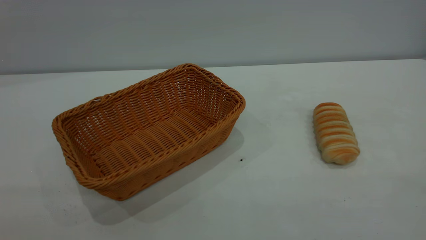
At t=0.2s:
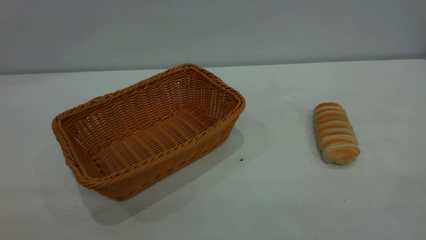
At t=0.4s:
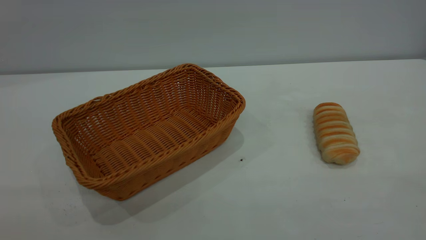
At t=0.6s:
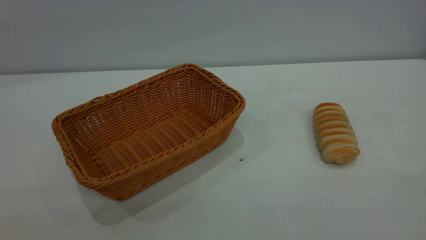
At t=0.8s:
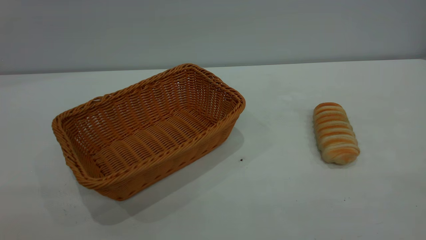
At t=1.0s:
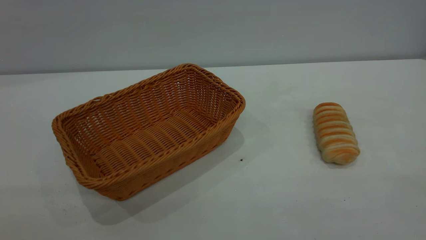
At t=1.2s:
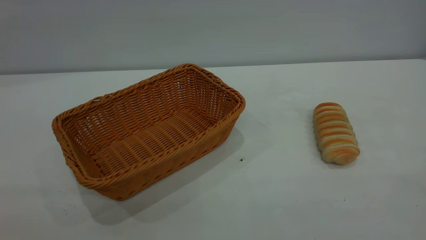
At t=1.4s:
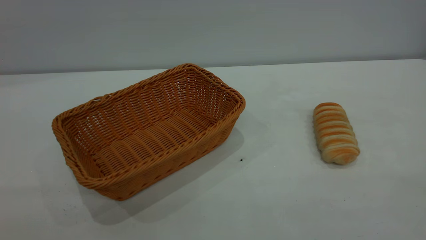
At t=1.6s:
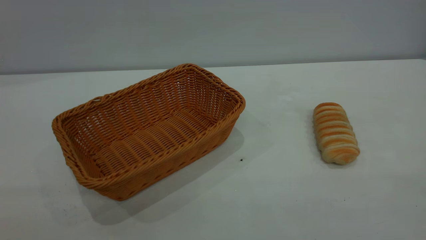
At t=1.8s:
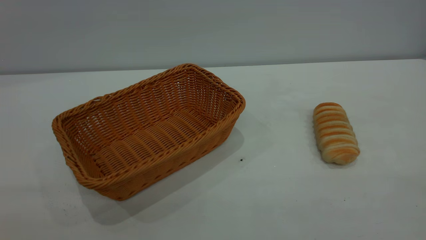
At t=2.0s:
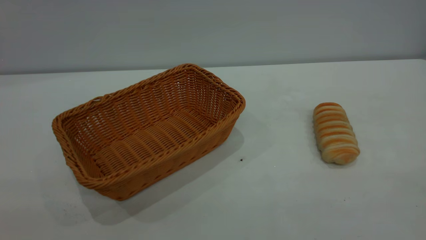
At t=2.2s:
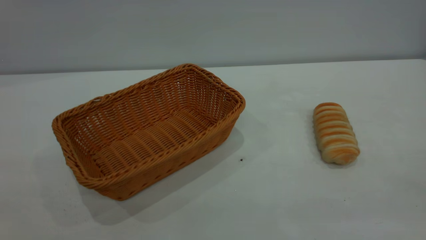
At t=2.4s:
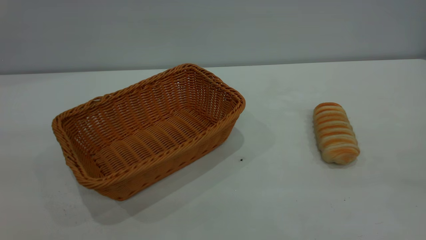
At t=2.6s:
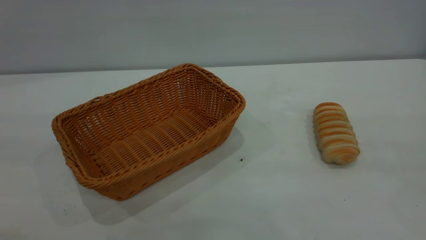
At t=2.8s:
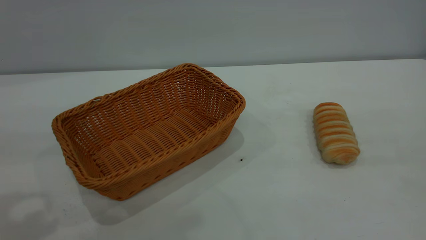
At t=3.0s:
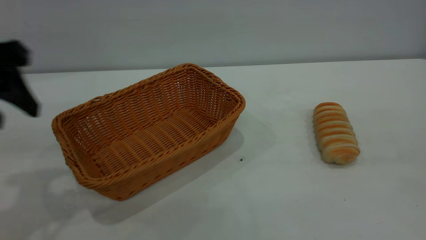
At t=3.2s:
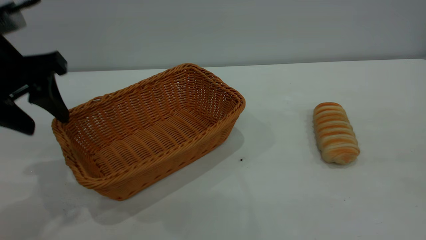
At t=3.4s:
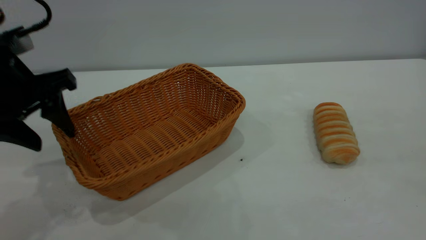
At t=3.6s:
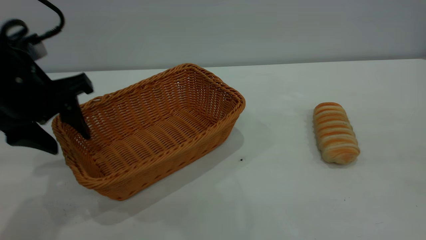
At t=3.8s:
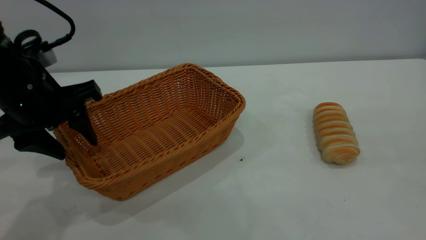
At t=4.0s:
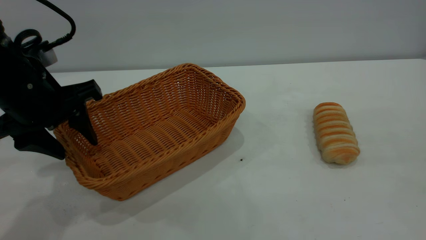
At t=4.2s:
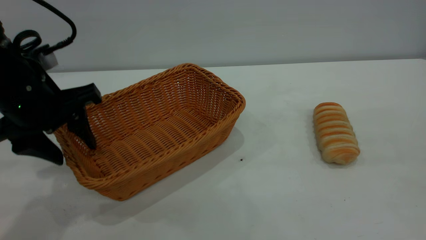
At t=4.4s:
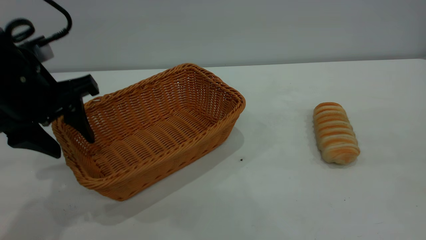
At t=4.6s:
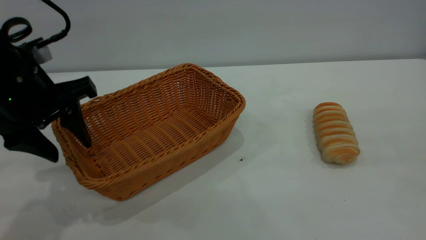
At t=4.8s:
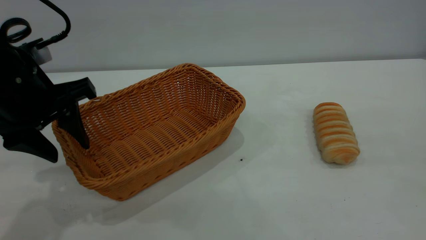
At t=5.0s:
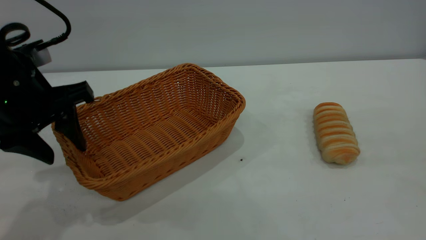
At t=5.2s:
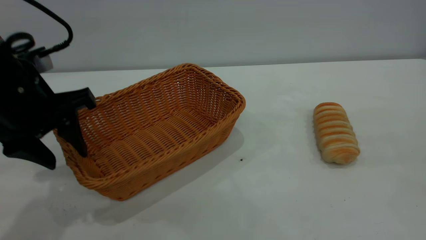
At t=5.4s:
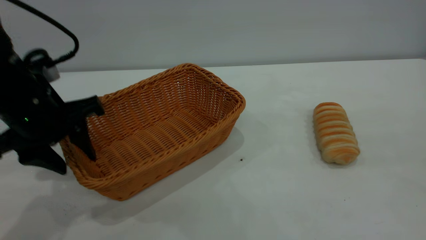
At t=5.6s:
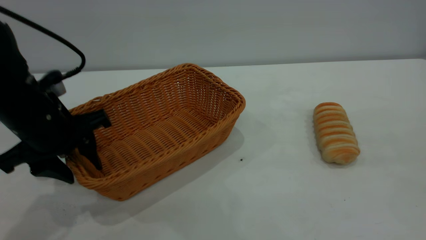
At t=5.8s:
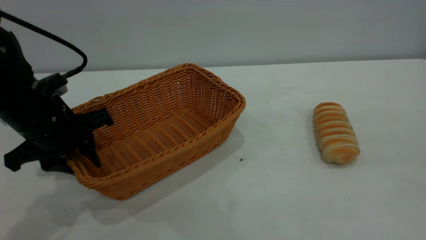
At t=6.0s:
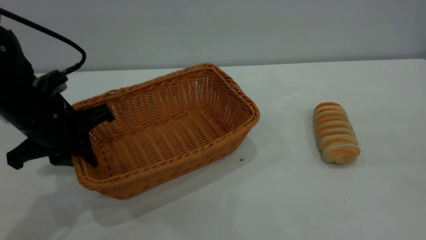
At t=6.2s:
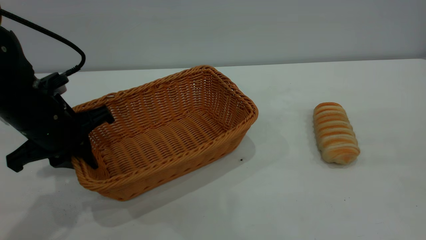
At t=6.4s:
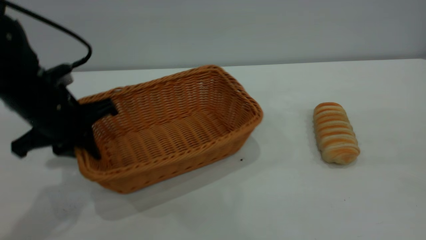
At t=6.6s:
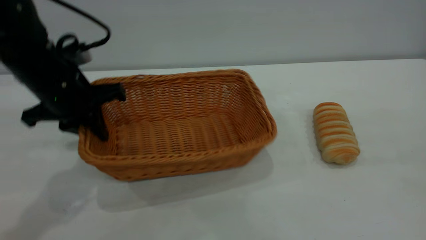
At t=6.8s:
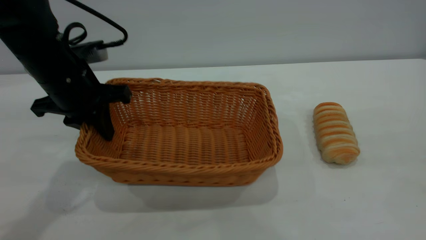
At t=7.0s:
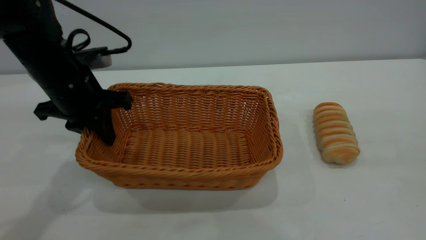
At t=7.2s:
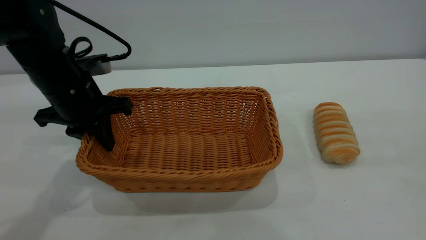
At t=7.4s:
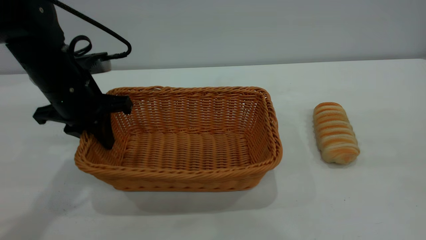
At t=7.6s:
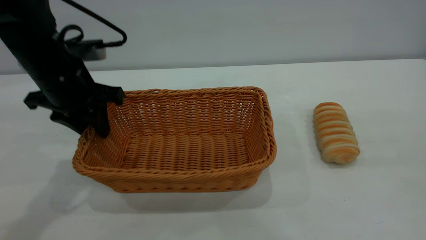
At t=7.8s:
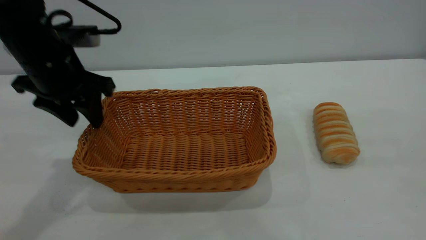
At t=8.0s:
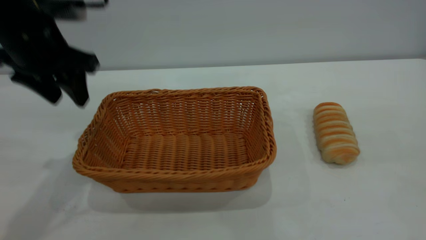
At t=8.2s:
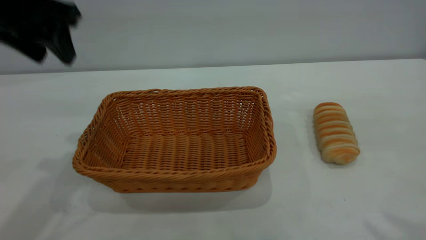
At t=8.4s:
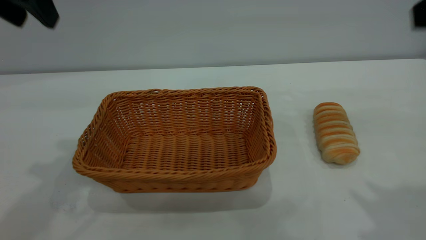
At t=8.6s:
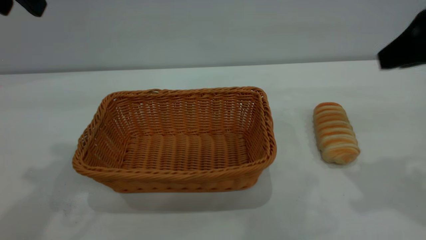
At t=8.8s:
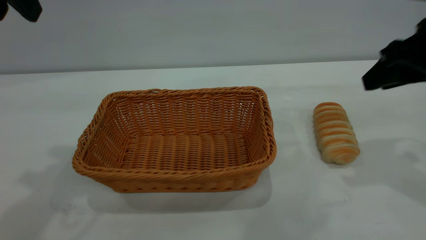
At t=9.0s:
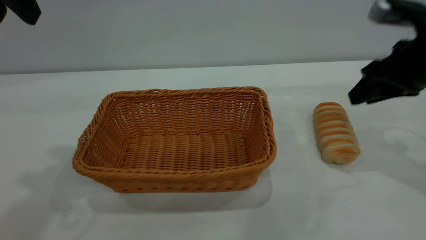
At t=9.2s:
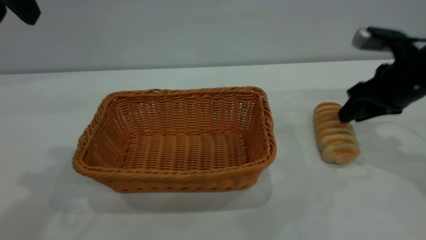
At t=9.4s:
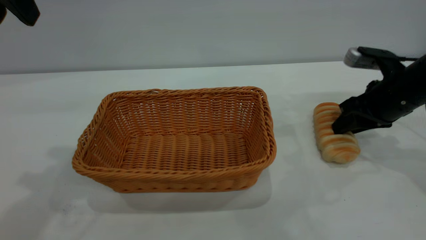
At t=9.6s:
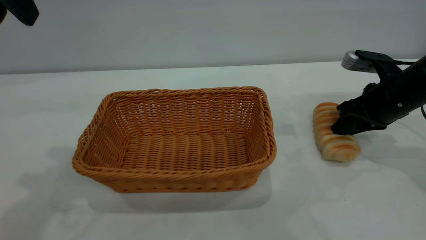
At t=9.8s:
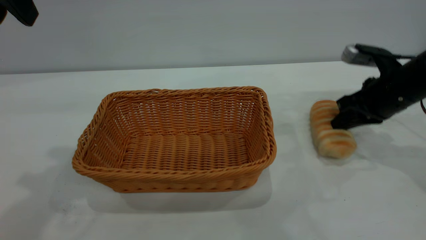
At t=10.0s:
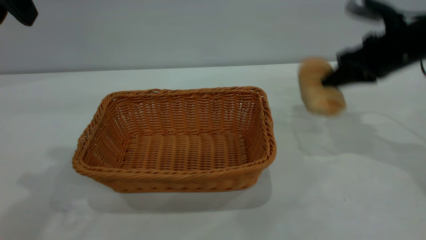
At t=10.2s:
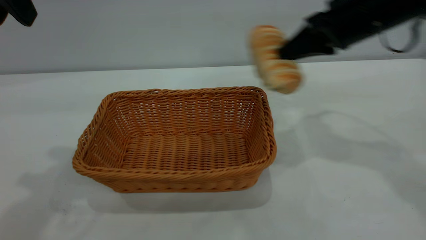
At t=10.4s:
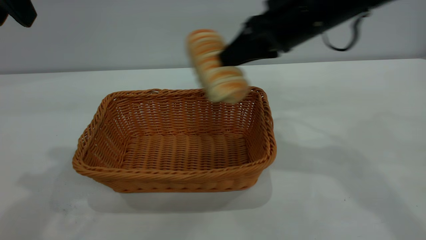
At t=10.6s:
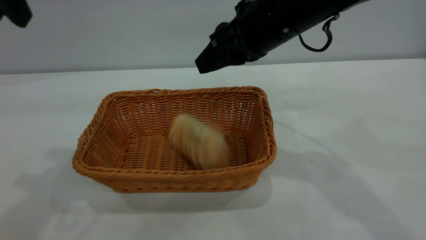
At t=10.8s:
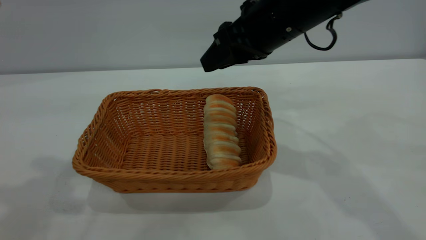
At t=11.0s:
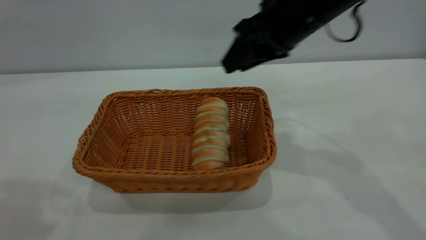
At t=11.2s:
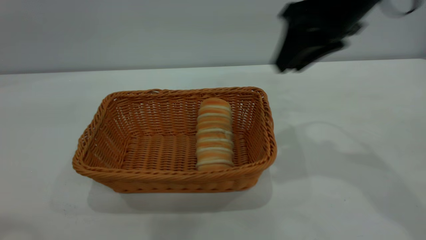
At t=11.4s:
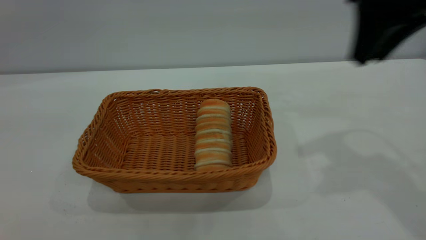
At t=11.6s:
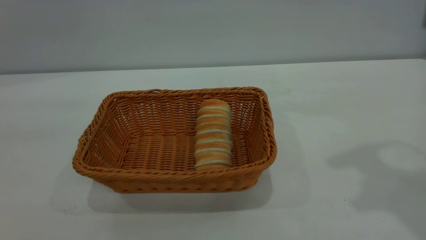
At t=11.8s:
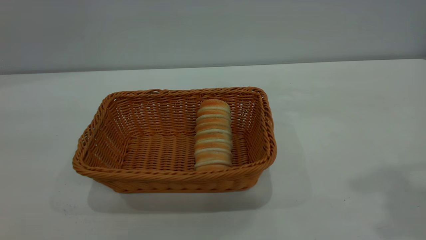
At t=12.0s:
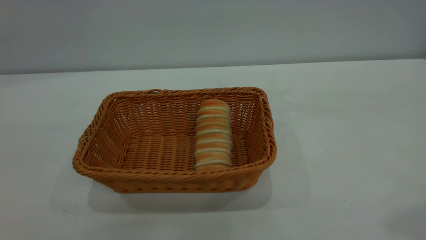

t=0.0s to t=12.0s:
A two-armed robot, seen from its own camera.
Task of the whole recording: One hand grasps the yellow basket and places it in the middle of the table, while the other hand picks up the long bread and puts it into the yellow basket.
Step, t=0.0s to t=8.0s: Move the basket to the center of view.
Step, t=10.2s to t=11.0s: place the bread into the basket.
t=0.0s to t=1.6s: The two grippers keep their place.
t=1.6s to t=3.0s: The left gripper travels forward by roughly 30 cm.
t=3.0s to t=4.4s: The left gripper moves downward, some 5 cm.
t=4.4s to t=6.0s: The left gripper travels downward by about 5 cm, and closes up.
t=6.0s to t=7.6s: The left gripper shifts roughly 5 cm forward, and opens its fingers.
t=7.6s to t=9.0s: The right gripper is displaced forward and downward by about 35 cm; the left gripper travels upward by about 20 cm.
t=9.0s to t=10.4s: The right gripper shifts some 15 cm to the left, and closes its fingers.
t=10.4s to t=12.0s: The right gripper travels upward, backward and to the right by approximately 35 cm, and opens; the left gripper goes approximately 35 cm backward and upward.

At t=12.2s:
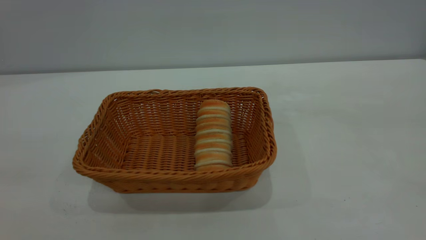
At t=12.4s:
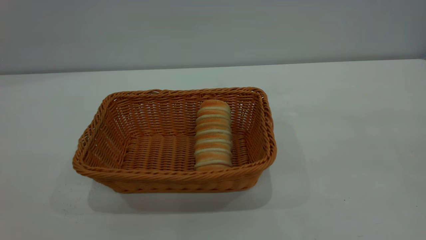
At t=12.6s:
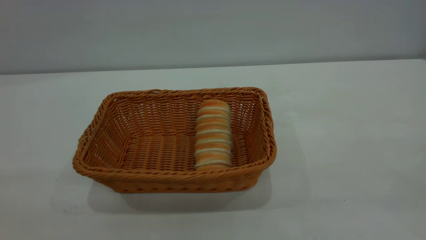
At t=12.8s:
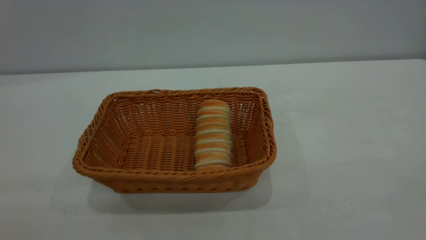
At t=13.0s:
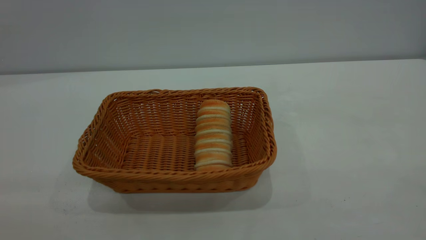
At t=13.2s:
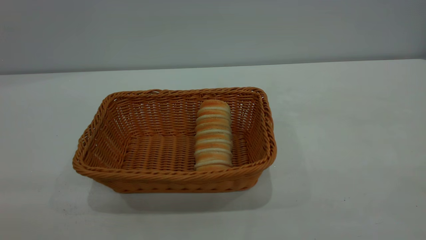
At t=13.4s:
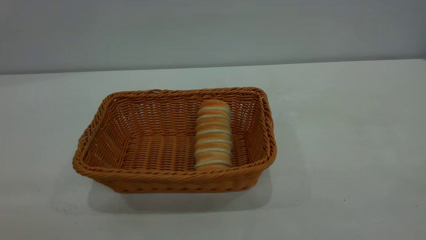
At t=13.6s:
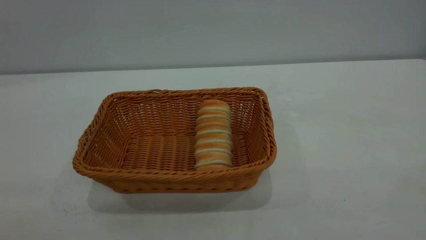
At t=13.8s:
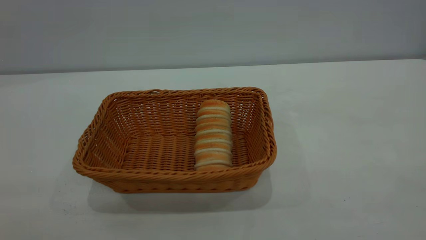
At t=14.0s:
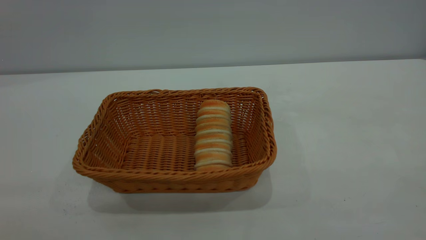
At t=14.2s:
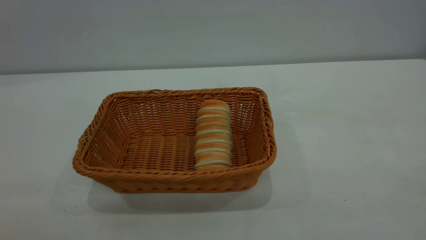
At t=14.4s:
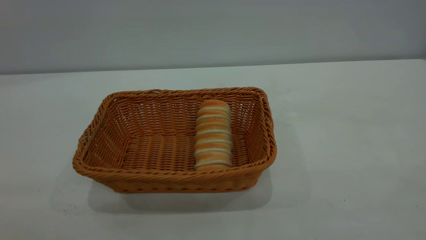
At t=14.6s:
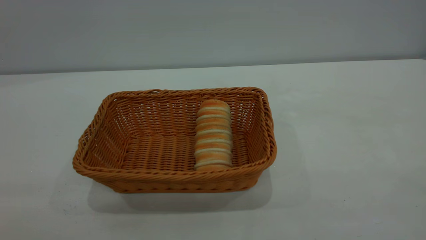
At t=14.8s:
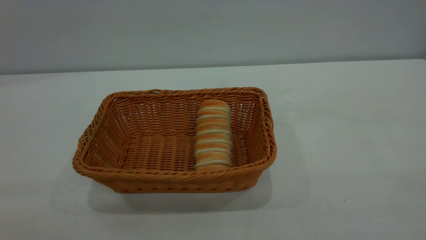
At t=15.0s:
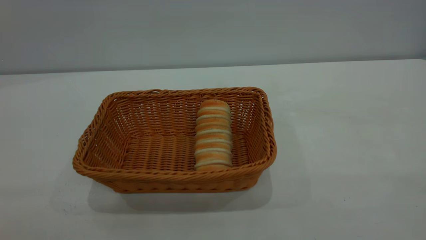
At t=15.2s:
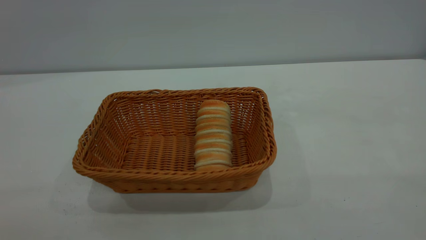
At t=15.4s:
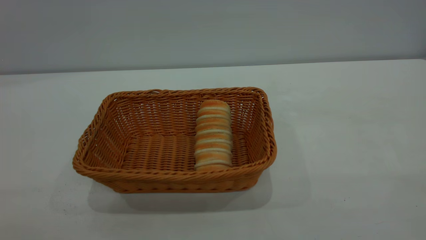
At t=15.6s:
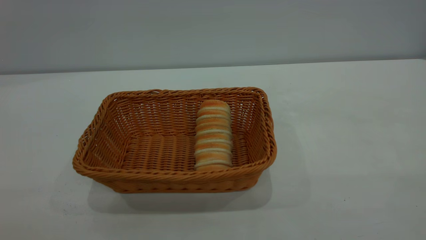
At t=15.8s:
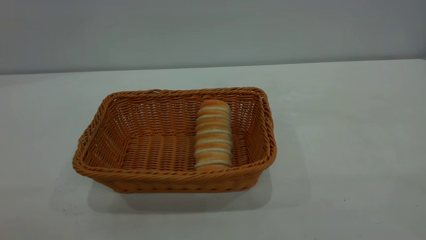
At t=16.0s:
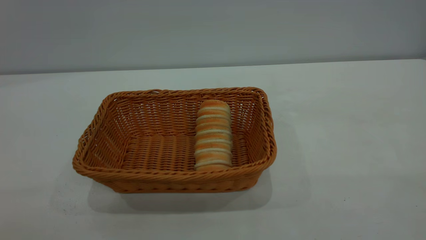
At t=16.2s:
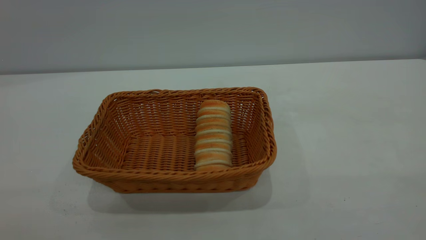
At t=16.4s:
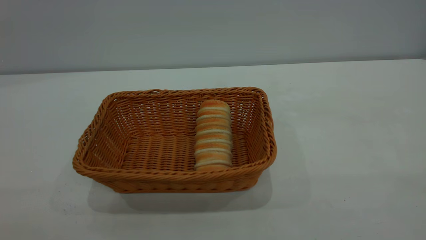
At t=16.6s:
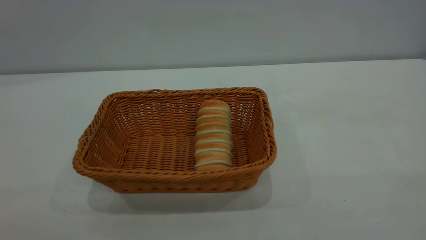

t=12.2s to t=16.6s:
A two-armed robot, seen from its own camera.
Task of the whole recording: One hand grasps the yellow basket and places it in the middle of the table, while the other hand picks up the long bread and puts it into the yellow basket.
t=15.2s to t=16.6s: The two grippers keep their place.
